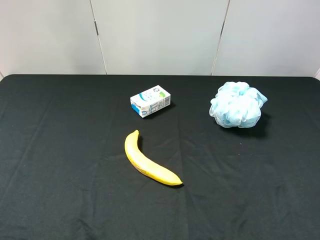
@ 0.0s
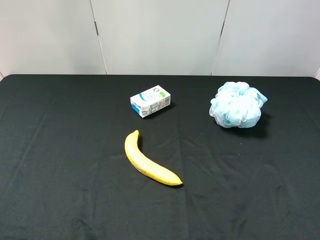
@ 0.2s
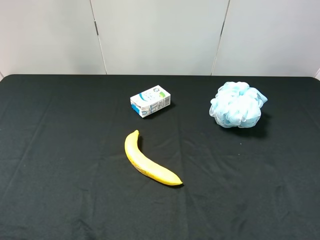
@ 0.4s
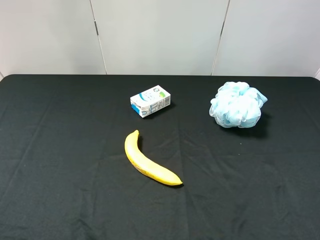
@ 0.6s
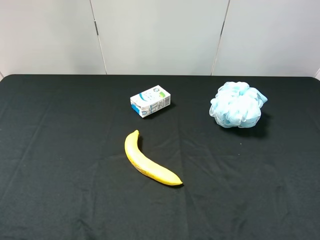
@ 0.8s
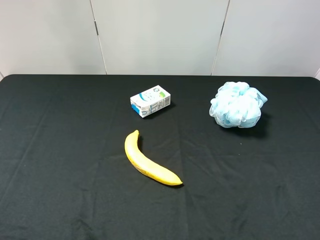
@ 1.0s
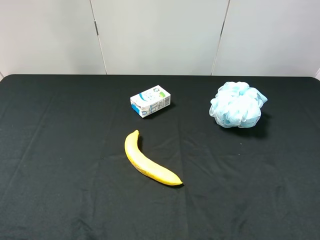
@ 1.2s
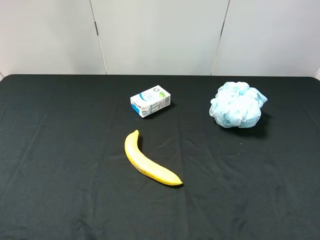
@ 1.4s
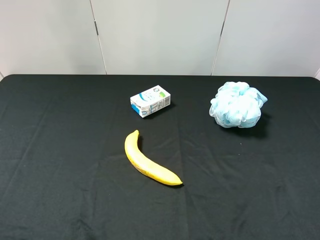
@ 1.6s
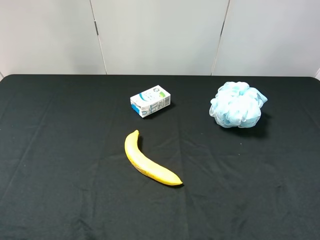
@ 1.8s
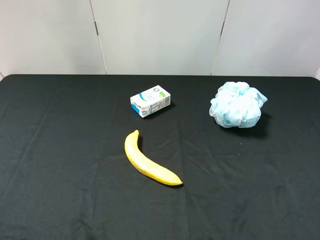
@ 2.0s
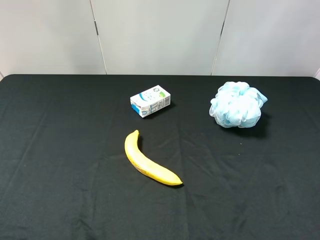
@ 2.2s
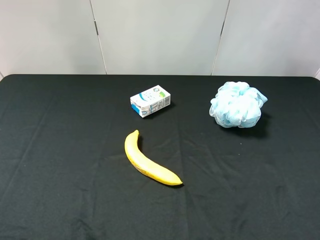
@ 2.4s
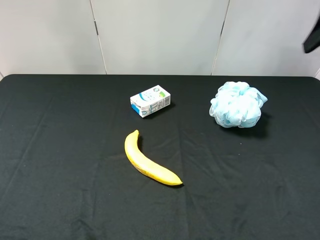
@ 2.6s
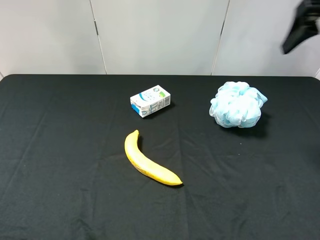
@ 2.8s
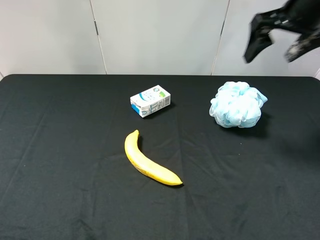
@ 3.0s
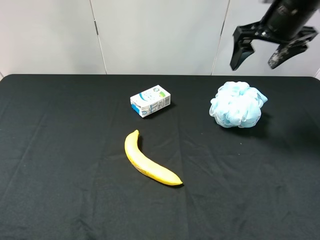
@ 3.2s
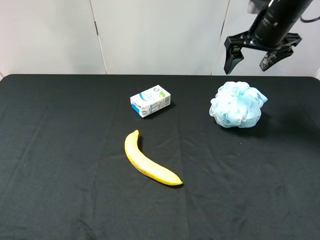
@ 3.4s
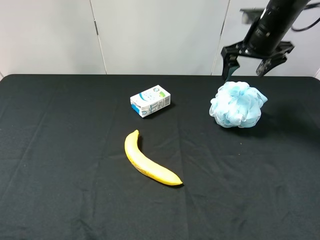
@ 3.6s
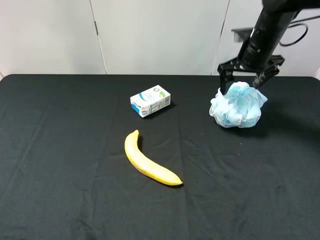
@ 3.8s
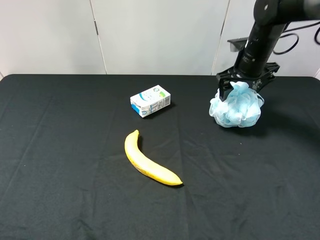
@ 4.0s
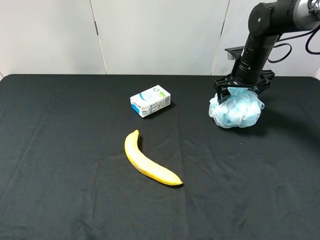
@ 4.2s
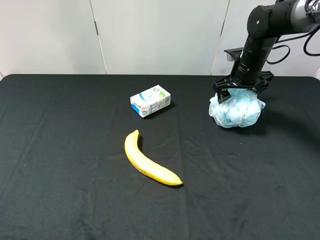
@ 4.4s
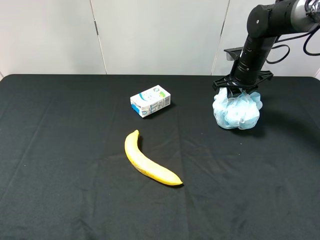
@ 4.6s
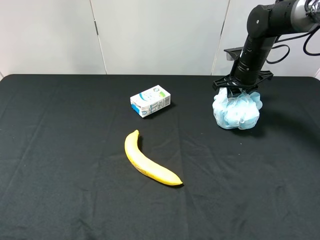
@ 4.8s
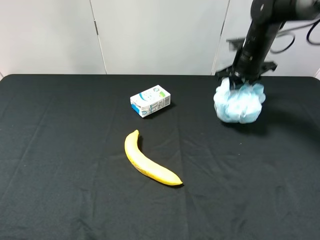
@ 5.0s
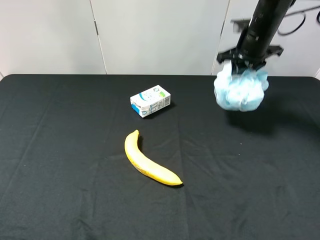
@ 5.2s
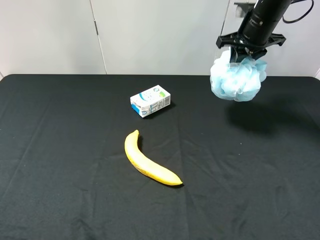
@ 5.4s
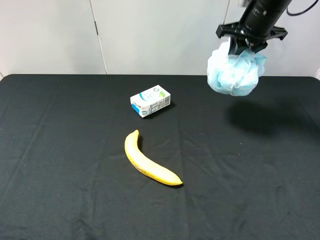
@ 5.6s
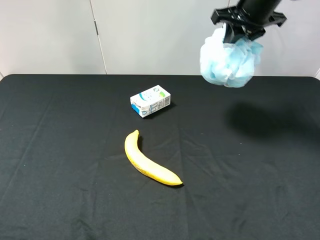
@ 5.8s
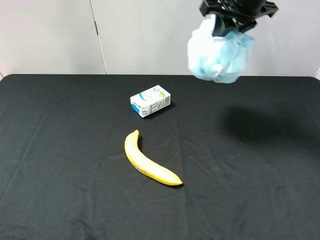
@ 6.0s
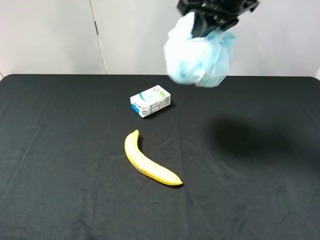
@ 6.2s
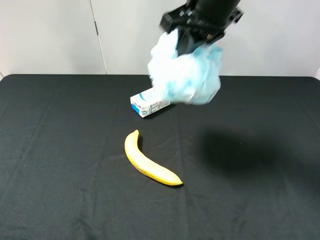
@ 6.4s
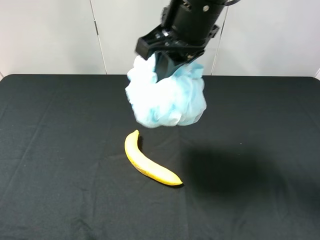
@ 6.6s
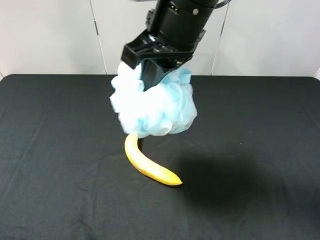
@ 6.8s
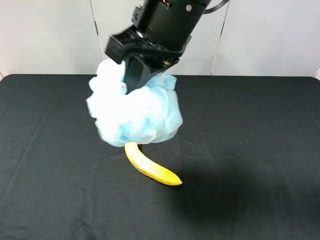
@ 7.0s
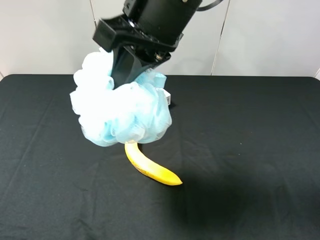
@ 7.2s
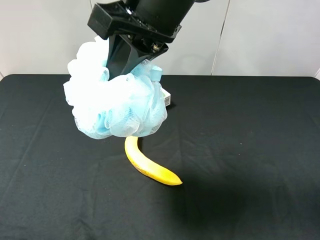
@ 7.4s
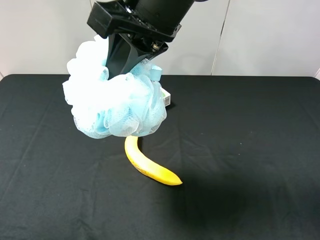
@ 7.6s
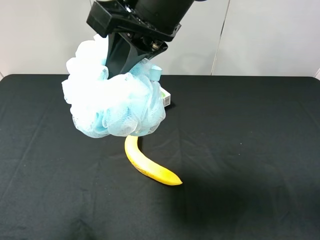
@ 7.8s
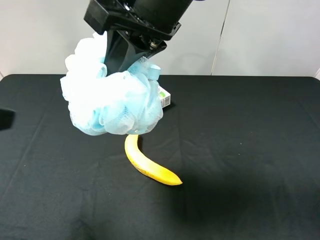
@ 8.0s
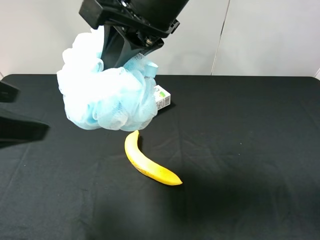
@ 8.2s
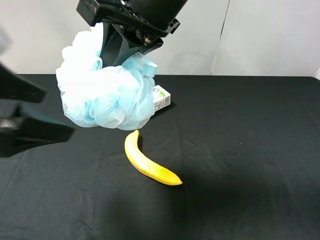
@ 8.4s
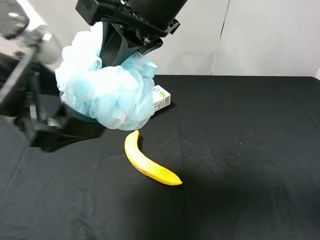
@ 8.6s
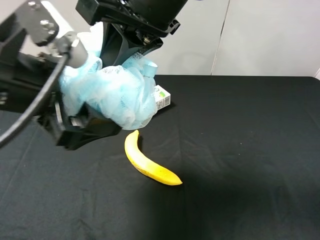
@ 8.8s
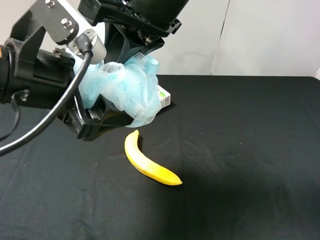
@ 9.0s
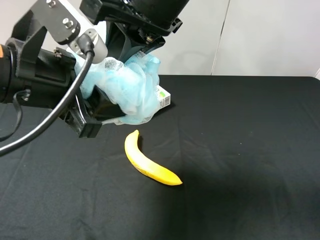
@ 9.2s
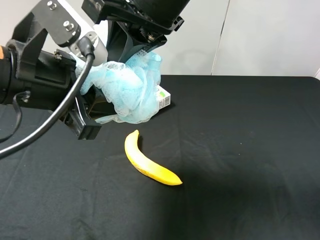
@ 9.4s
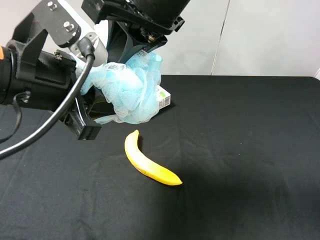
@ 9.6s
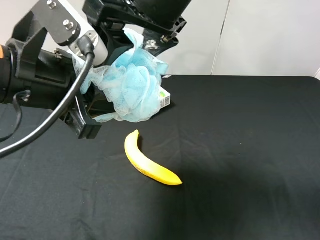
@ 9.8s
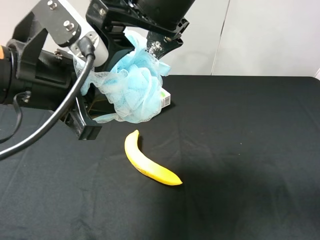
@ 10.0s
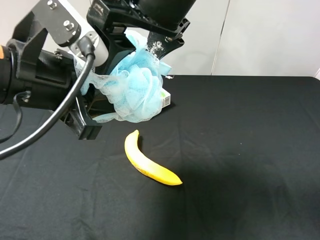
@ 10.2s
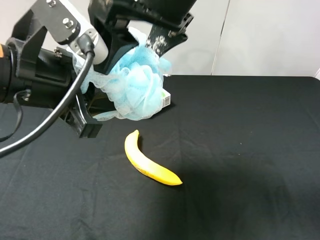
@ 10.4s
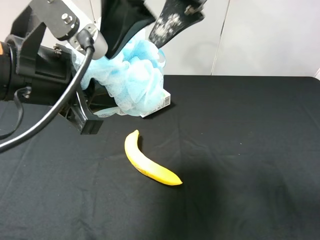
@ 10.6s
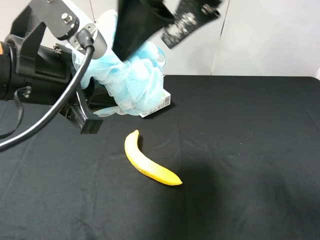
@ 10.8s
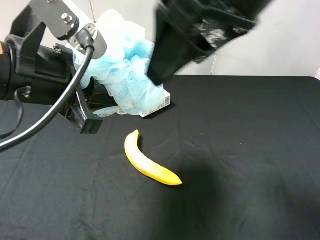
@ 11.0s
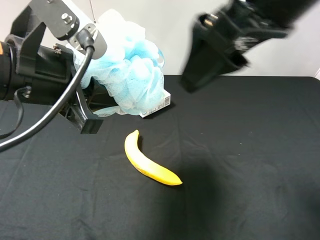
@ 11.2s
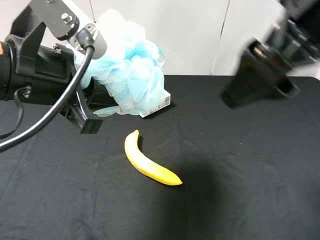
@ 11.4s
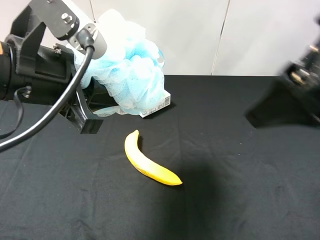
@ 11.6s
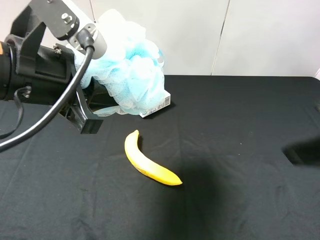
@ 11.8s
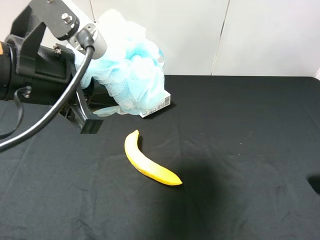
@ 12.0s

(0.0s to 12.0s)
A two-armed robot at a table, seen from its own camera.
Task of the whole recording: use the right gripper to pick up the item and transfer it from the right gripper to the left gripper.
Step, 0.0s - 4.8s: Use the right gripper to grab the shower sphere on the right side of the table.
Step, 5.0s - 10.0s: Pass the shower sphere to the left gripper.
1.6s - 3.0s: The right gripper travels forward by approximately 30 cm.
3.0s - 4.4s: The right gripper is displaced downward and forward by approximately 20 cm.
4.4s - 6.0s: The right gripper travels upward and to the left by roughly 20 cm, and closes.
6.0s - 7.6s: The right gripper shifts approximately 20 cm backward and to the left. Meanwhile the left gripper goes roughly 10 cm forward and upward.
7.6s - 9.0s: The left gripper shifts approximately 20 cm to the right and forward.
9.0s - 10.4s: The left gripper closes; the right gripper opens.
10.4s - 12.0s: The right gripper heads to the right and backward, covering some 30 cm.

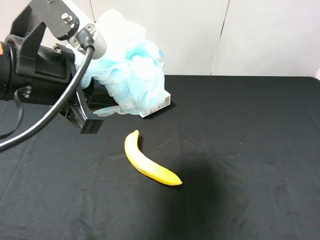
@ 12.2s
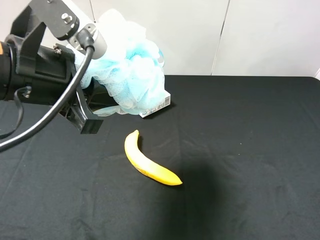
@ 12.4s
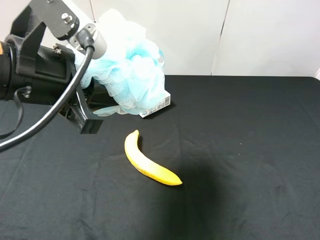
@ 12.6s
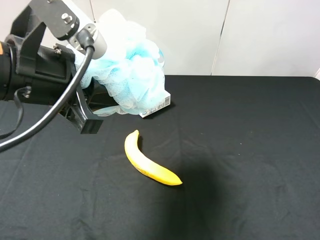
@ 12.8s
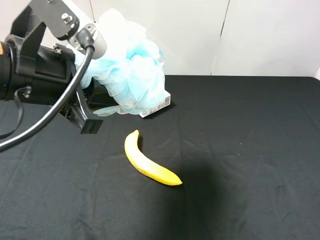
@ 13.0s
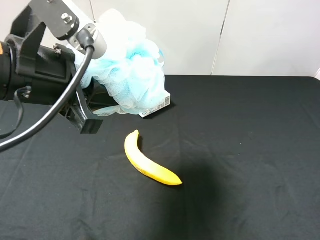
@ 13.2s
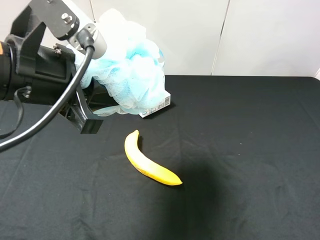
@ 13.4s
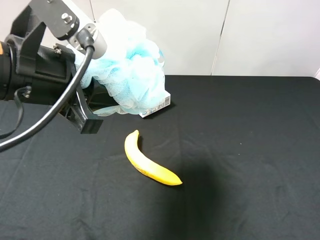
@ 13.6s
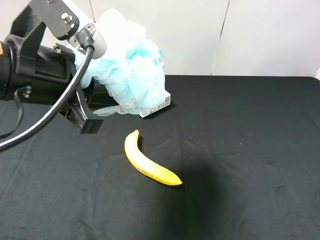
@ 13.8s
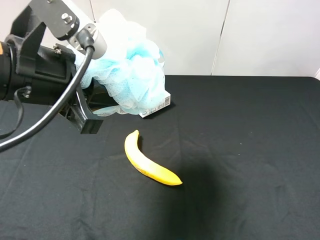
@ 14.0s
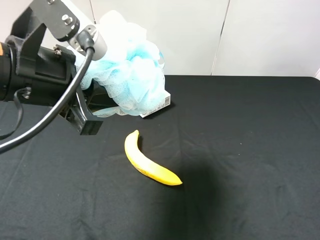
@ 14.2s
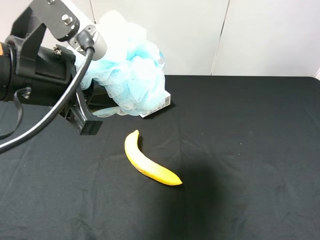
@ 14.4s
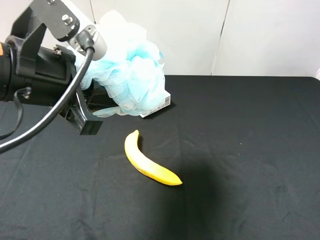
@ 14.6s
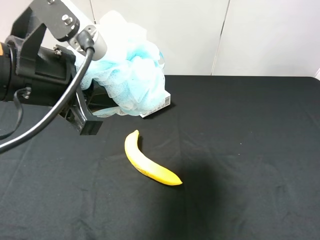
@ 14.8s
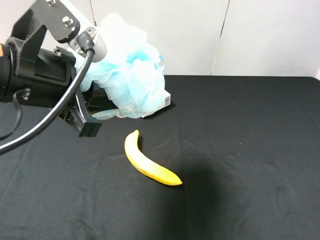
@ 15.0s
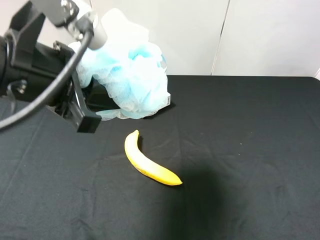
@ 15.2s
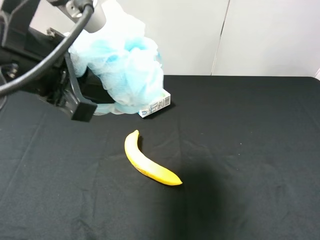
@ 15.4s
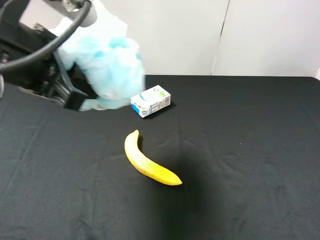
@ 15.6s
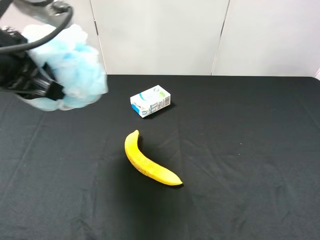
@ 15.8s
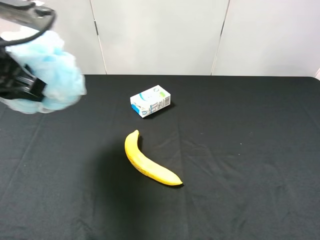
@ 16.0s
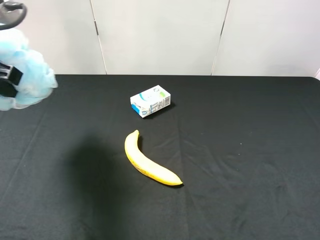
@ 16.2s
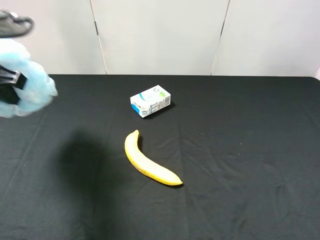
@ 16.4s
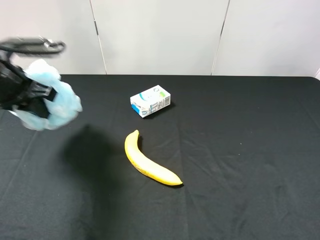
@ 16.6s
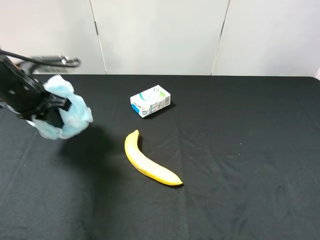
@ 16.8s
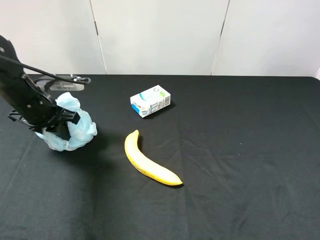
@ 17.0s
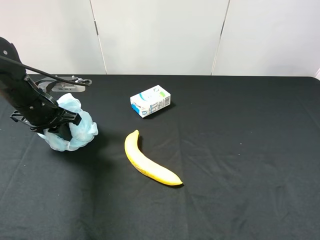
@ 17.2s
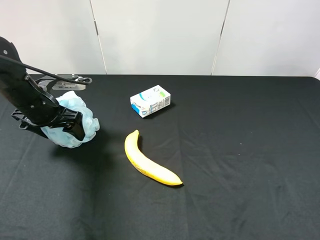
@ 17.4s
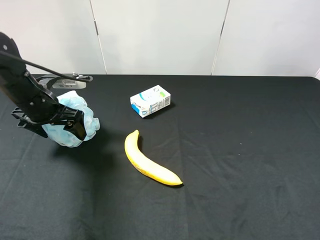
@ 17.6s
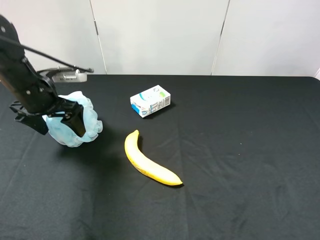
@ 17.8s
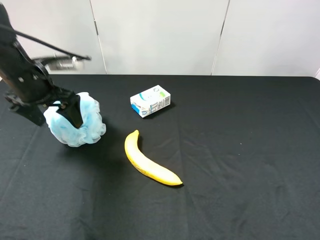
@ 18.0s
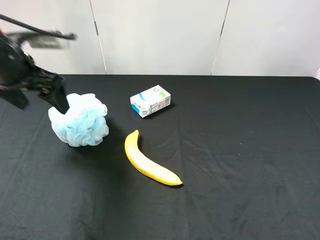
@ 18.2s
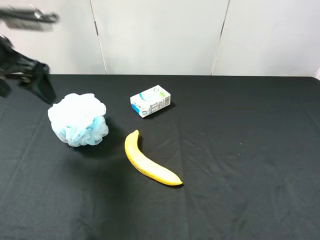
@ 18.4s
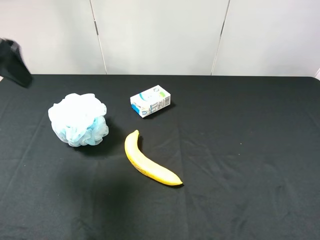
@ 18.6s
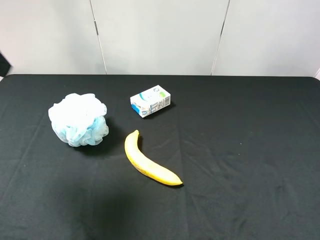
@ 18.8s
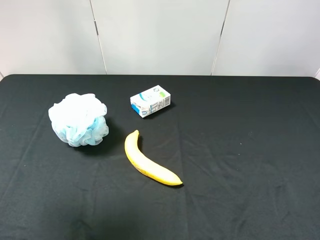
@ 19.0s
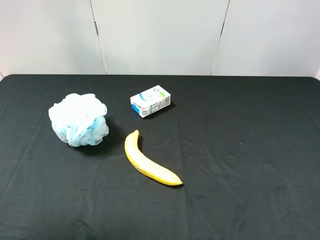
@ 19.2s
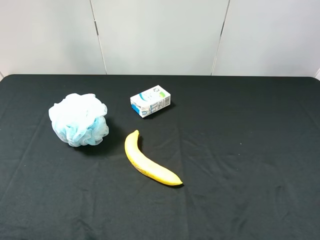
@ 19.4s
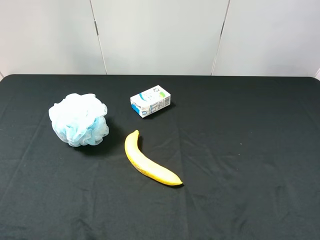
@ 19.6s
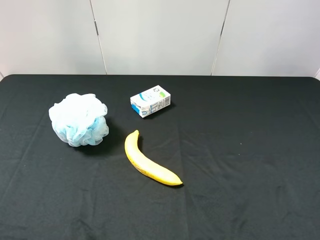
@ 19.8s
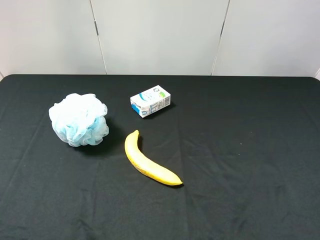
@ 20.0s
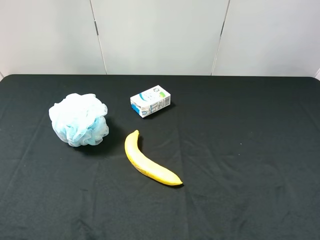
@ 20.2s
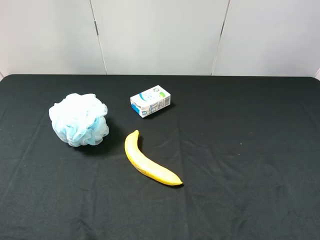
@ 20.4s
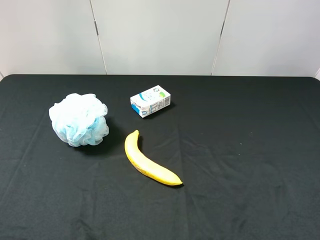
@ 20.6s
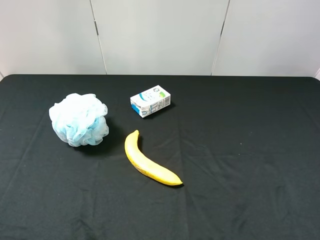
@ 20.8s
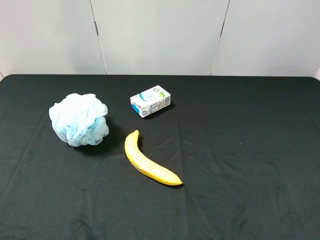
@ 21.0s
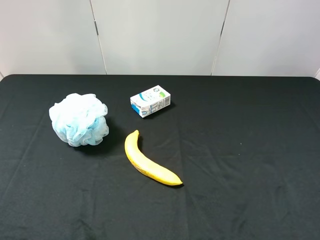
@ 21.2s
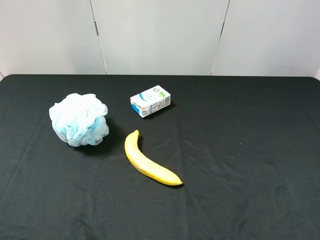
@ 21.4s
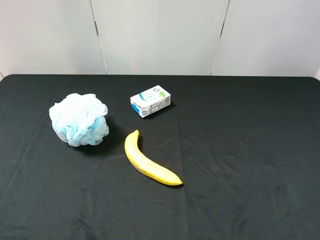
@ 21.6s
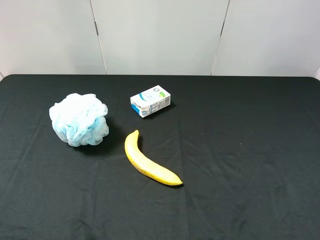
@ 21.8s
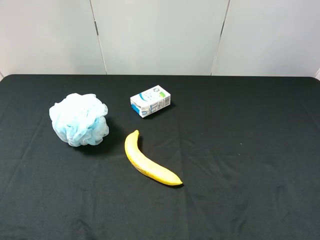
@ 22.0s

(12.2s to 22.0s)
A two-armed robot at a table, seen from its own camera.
Task of the whole recording: use the right gripper to pick up the item and transfer it from the right gripper to the left gripper.
Step, 12.2s - 17.8s: The left gripper places shower sphere on the left side of the table.
15.0s - 16.4s: The left gripper travels to the left and forward by about 15 cm.
16.4s - 17.8s: The left gripper heads downward and forward, covering about 10 cm, and opens its fingers.
17.8s - 19.2s: The left gripper is displaced upward and backward by roughly 30 cm.
